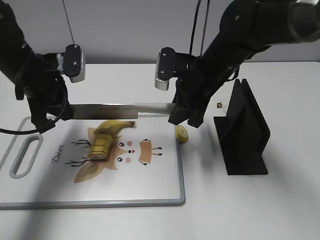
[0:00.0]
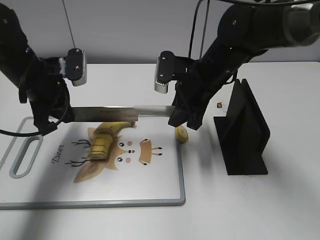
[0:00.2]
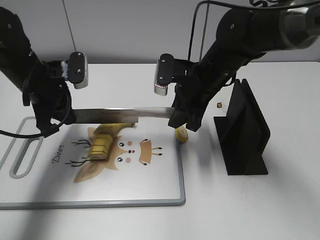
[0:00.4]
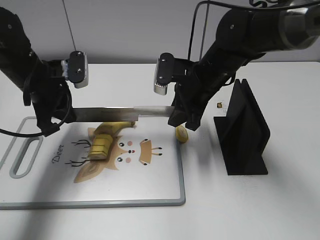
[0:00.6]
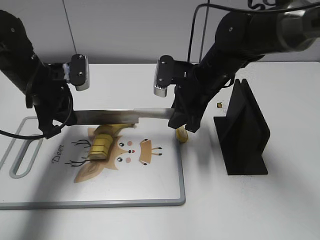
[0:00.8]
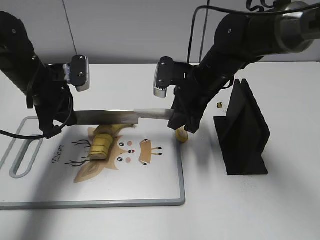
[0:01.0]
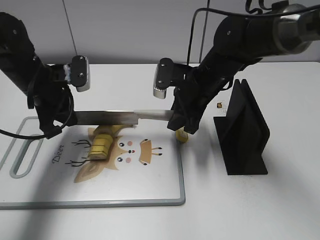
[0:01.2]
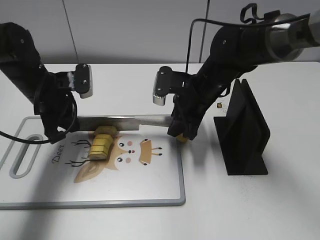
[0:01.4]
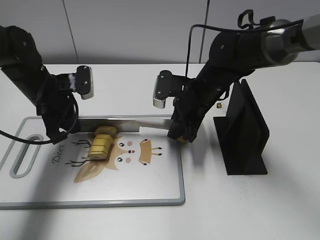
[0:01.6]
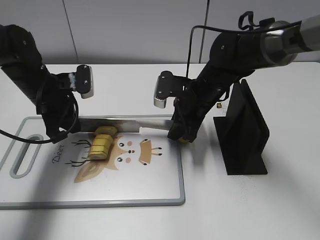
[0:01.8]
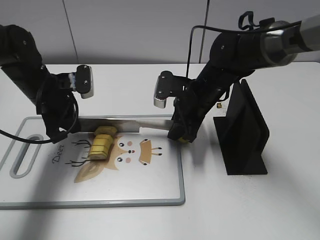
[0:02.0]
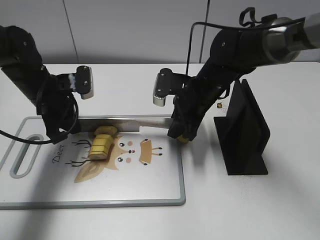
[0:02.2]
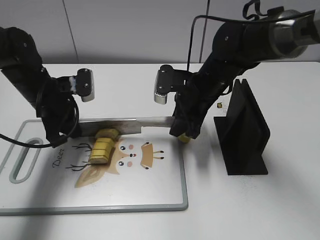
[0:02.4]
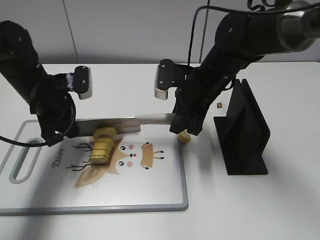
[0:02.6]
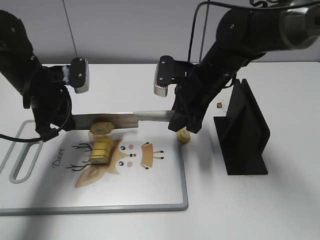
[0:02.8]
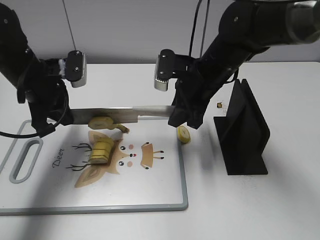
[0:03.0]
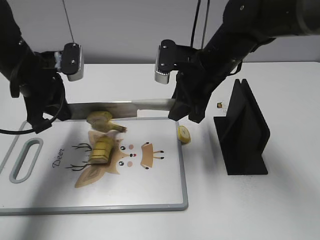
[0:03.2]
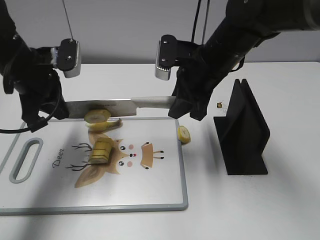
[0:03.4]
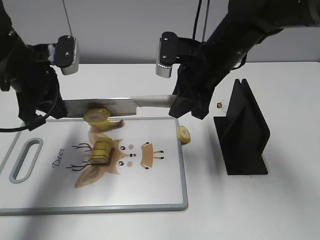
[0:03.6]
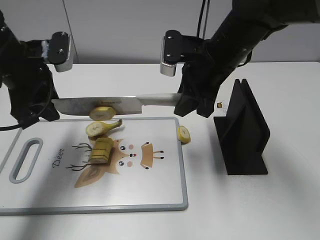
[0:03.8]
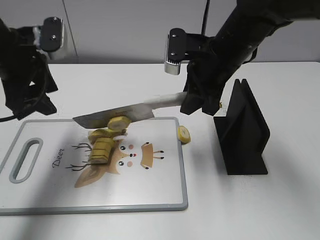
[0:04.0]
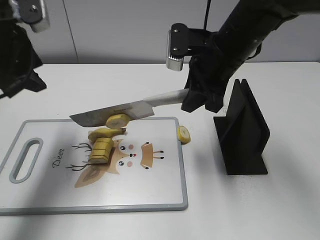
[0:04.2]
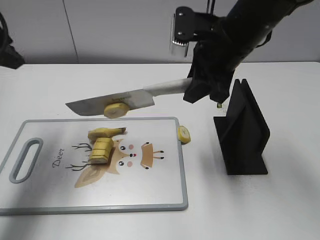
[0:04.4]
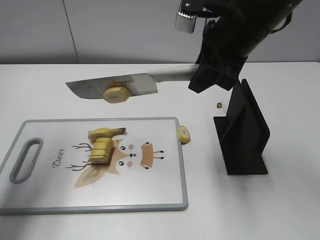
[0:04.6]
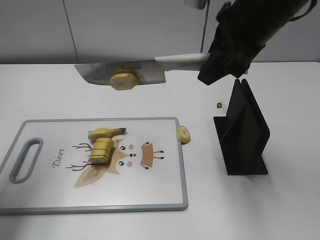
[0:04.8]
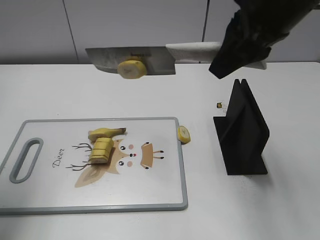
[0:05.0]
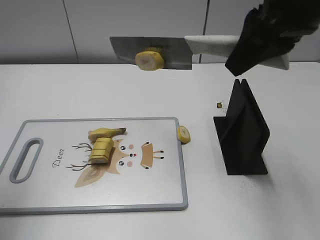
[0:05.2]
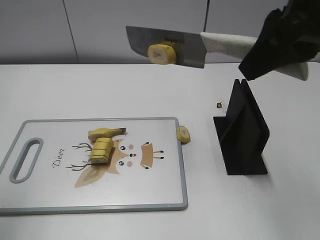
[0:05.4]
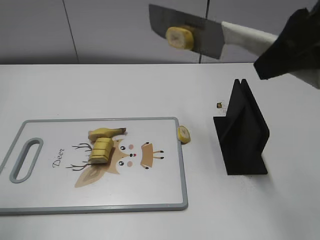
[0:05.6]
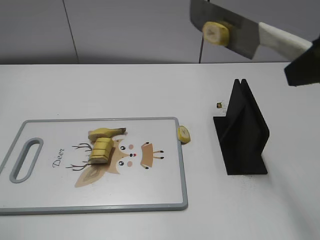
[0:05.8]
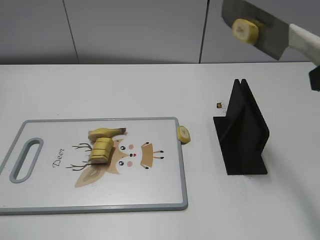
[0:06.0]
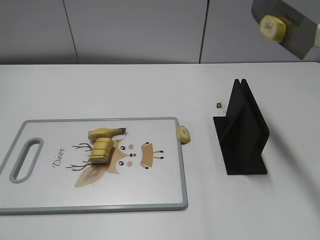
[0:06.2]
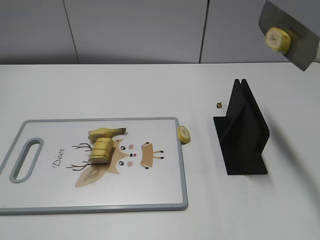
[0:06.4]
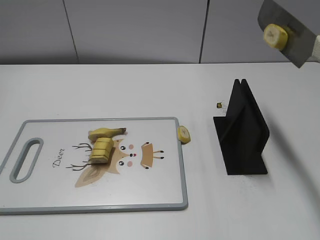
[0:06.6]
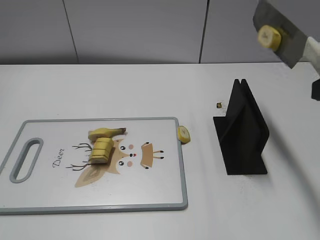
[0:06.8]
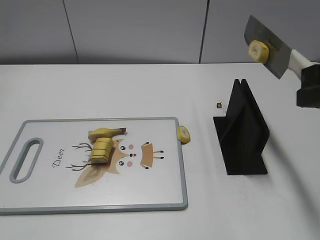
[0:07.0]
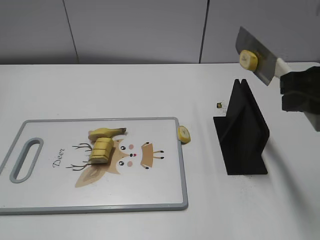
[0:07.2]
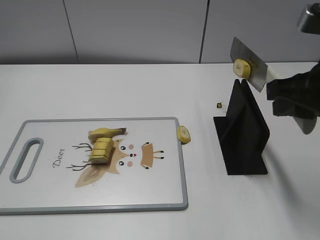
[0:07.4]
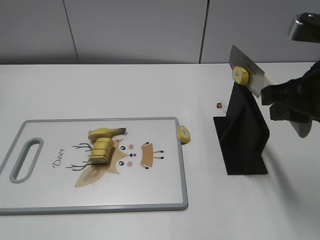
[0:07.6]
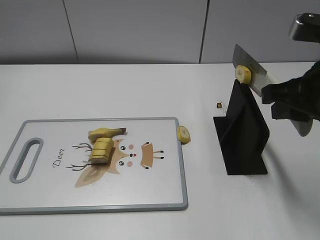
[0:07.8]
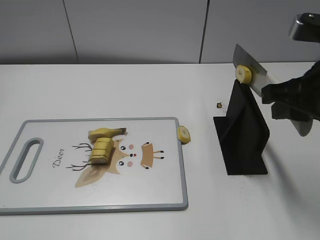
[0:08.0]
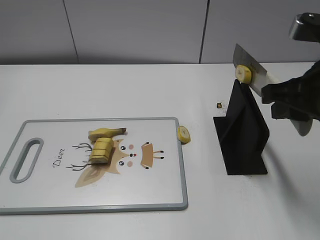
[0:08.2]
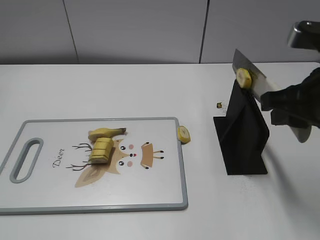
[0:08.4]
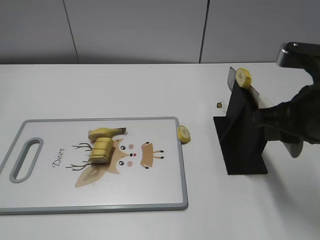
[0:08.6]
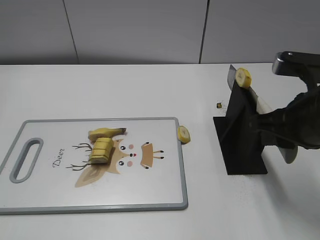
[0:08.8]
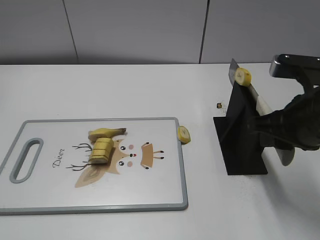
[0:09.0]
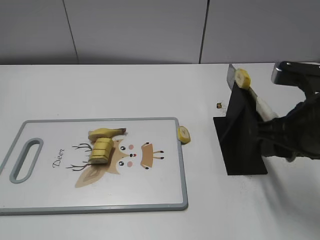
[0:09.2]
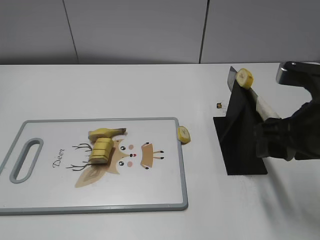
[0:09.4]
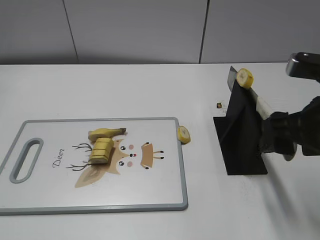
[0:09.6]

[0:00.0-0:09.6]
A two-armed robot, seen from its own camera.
Task of the whole recording: cut banana.
Step, 0:01.4 to 0:05.0: Cut the banana with your right hand.
Step, 0:05.2 to 0:07.4: Lift the knife with your right hand.
0:00.0 to 0:01.6: The two grippers go approximately 5 cm downward.
0:01.6 to 0:03.2: Both grippers move upward, some 5 cm.
0:03.2 to 0:04.8: The left gripper moves upward, backward and to the left, roughly 20 cm, and opens its fingers. Meanwhile the right gripper travels upward and backward by some 15 cm.
0:04.8 to 0:06.4: The left gripper goes roughly 20 cm backward, while the right gripper goes roughly 20 cm backward and to the right.
0:06.4 to 0:08.0: The right gripper heads forward and downward, covering some 10 cm.
0:08.0 to 0:09.6: The right gripper opens its fingers.

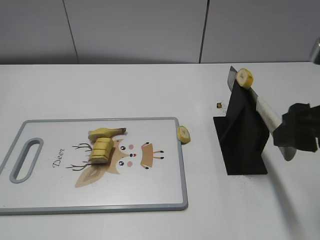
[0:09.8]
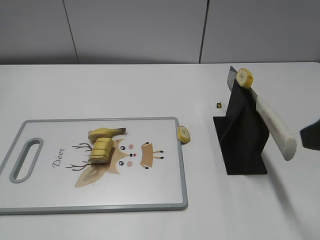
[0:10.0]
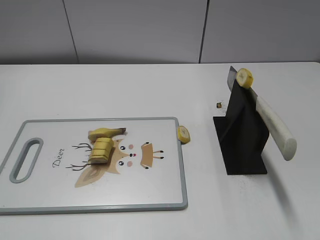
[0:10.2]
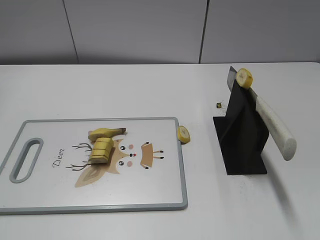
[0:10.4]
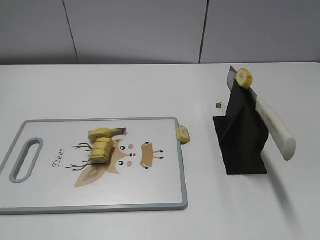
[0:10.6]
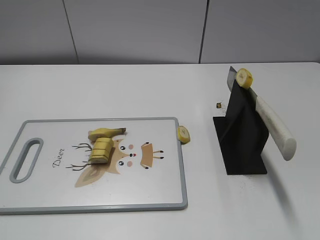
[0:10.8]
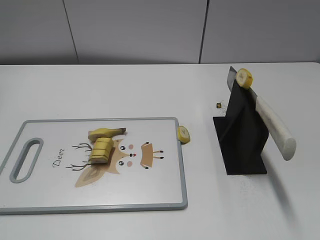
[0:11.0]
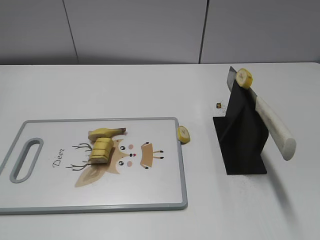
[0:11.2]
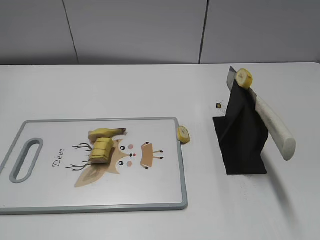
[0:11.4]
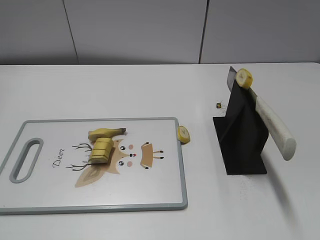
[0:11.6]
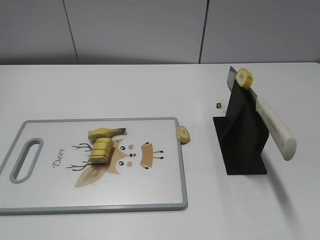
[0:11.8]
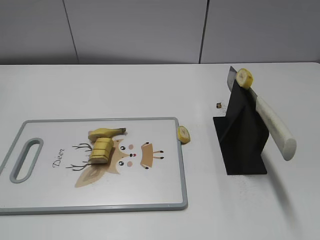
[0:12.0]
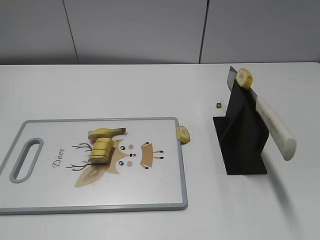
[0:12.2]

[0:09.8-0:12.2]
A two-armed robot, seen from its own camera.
Task of the whole recording: cut banana.
Step, 0:09.8 to 0:12.2: Place the knife on the storage rack with your right hand.
0:09.8 to 0:11.0: The right gripper travels backward and to the right by approximately 20 cm.
